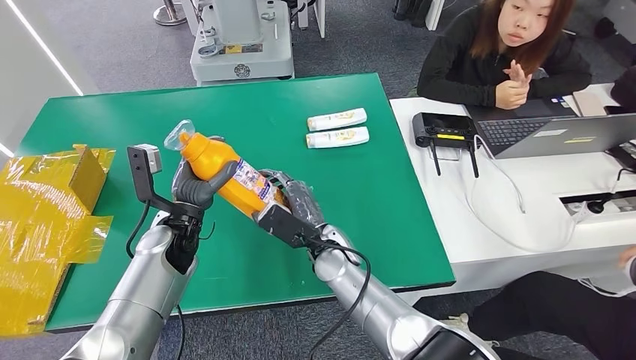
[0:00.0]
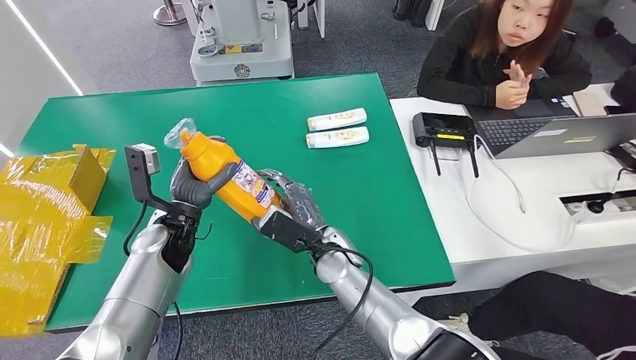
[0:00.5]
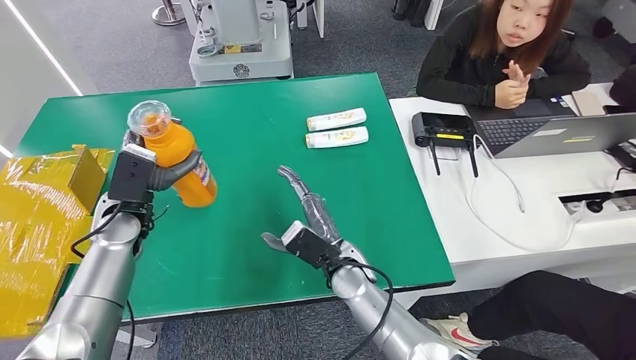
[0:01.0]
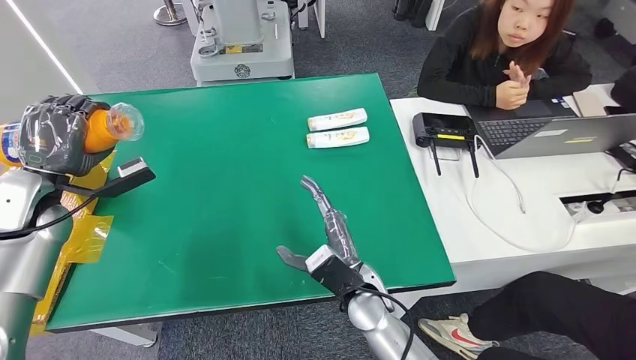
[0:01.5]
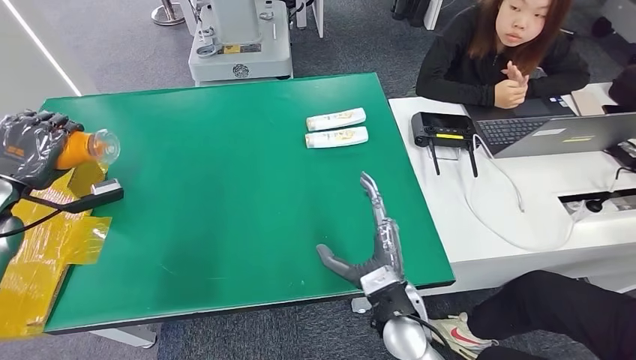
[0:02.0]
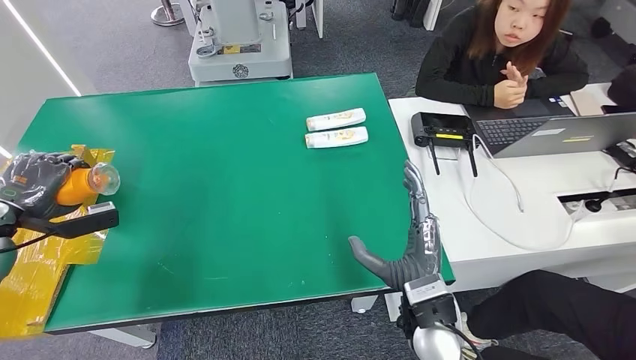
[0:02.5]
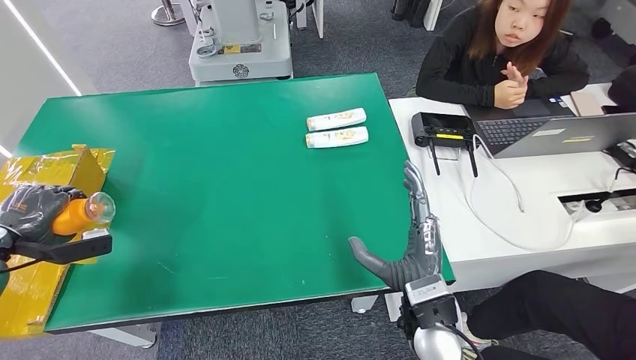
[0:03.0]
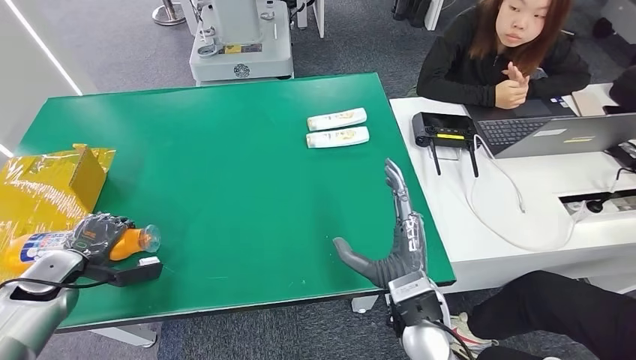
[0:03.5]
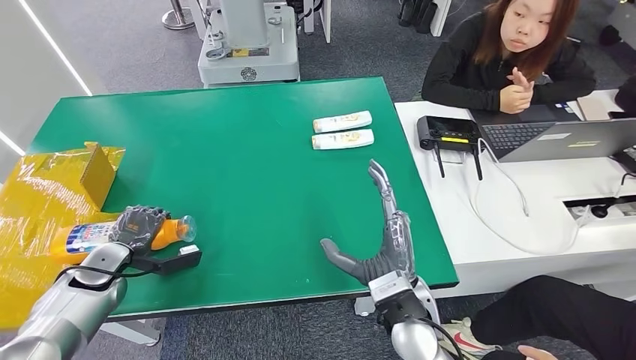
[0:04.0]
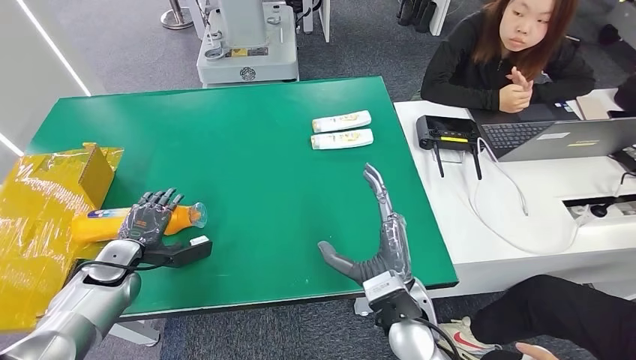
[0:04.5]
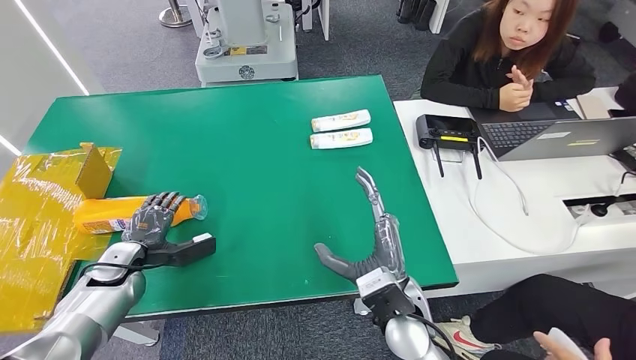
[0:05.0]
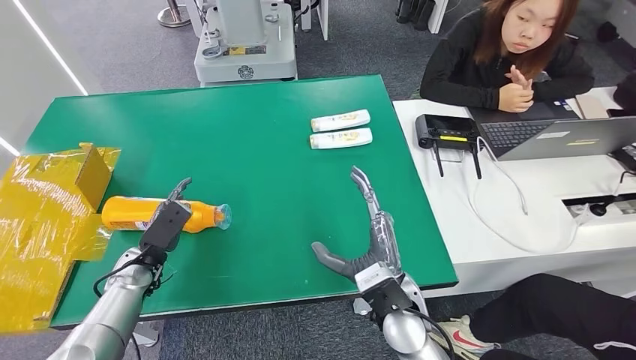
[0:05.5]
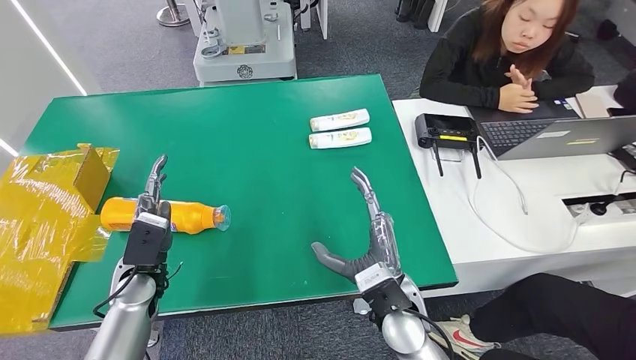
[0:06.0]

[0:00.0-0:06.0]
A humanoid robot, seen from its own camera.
Step, 0:00.0 to 0:06.0: Turn the bottle to the front side.
